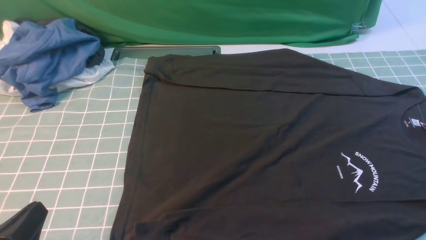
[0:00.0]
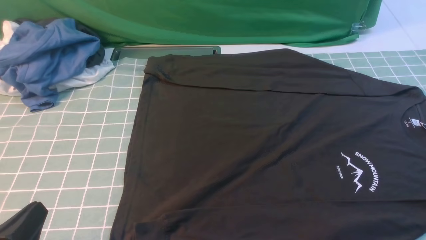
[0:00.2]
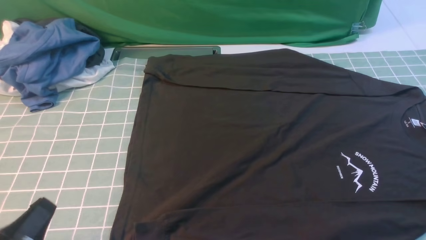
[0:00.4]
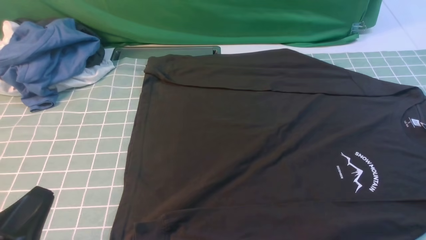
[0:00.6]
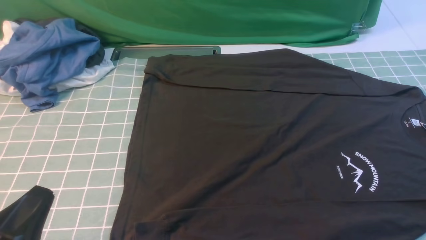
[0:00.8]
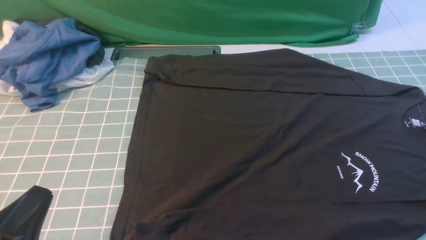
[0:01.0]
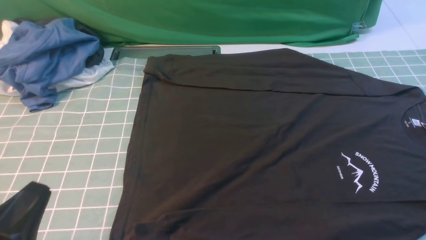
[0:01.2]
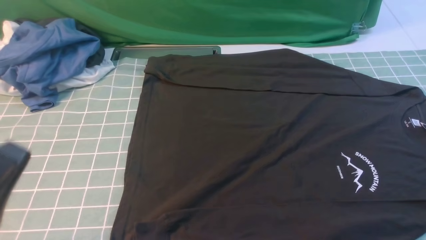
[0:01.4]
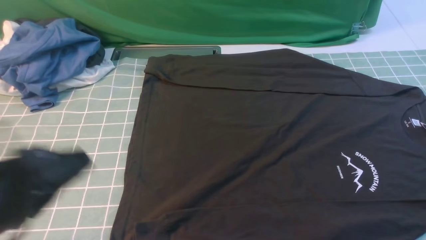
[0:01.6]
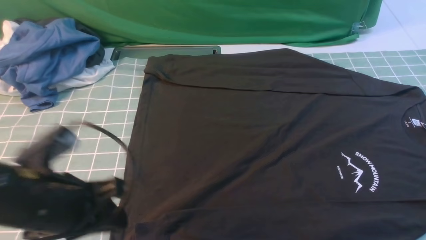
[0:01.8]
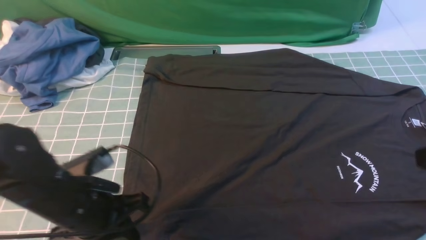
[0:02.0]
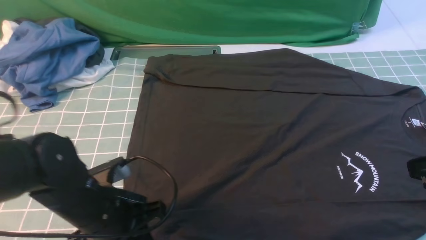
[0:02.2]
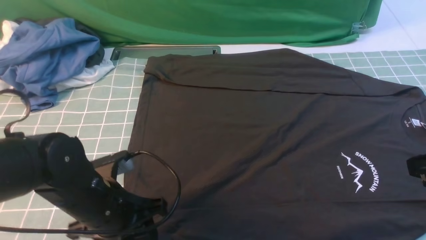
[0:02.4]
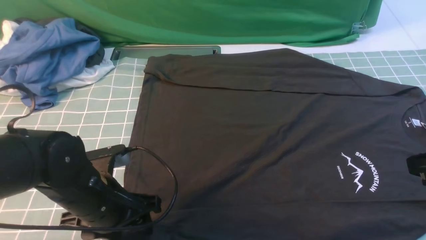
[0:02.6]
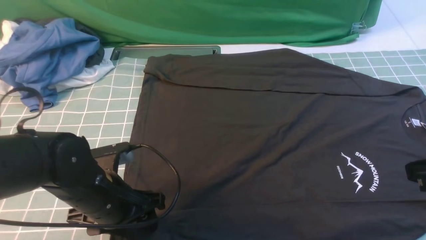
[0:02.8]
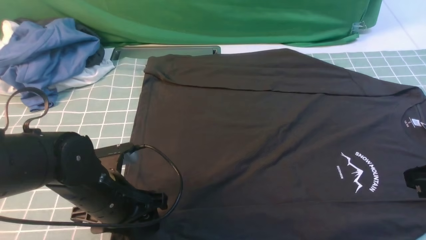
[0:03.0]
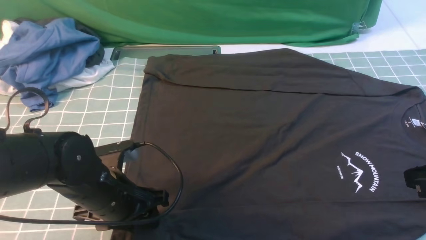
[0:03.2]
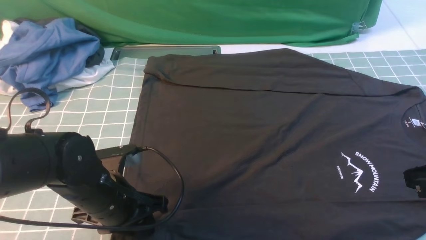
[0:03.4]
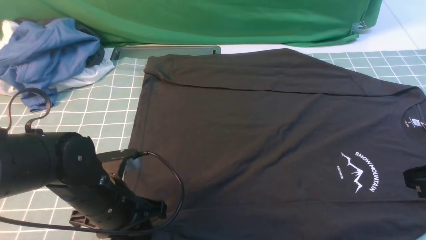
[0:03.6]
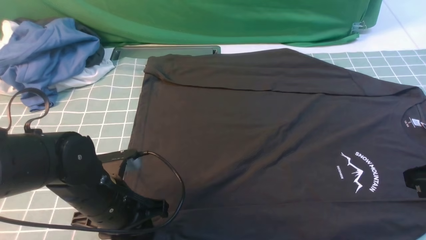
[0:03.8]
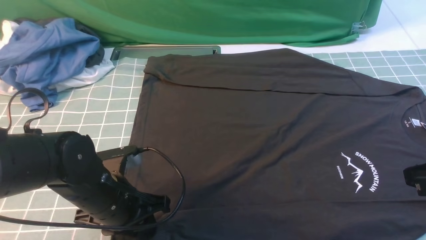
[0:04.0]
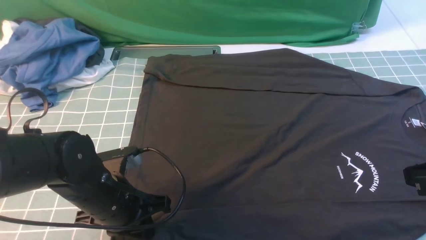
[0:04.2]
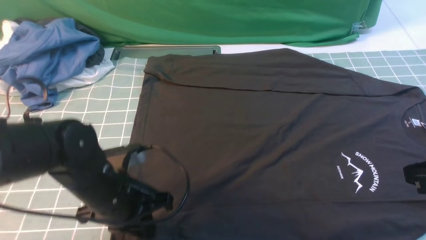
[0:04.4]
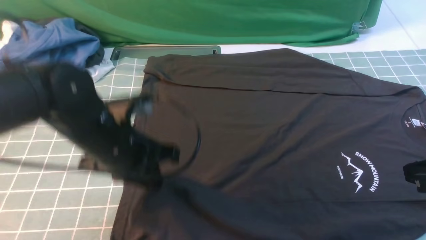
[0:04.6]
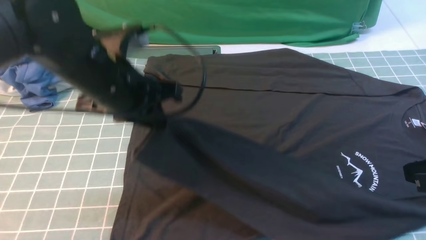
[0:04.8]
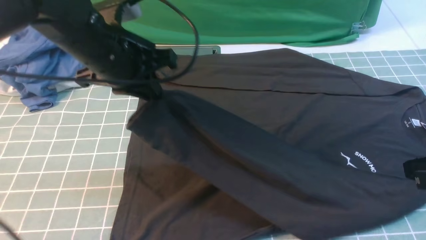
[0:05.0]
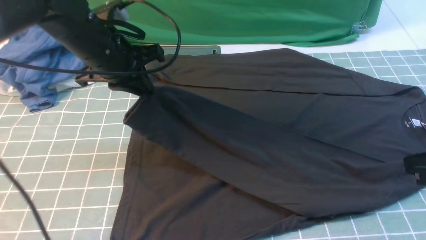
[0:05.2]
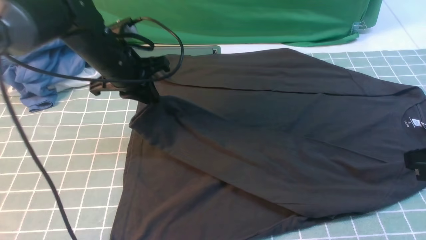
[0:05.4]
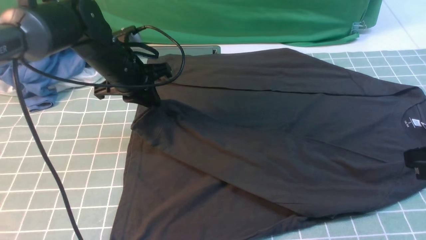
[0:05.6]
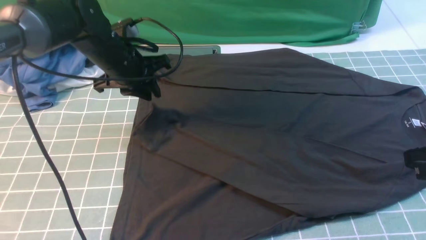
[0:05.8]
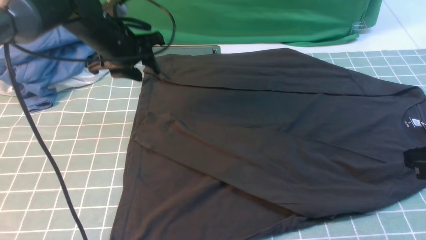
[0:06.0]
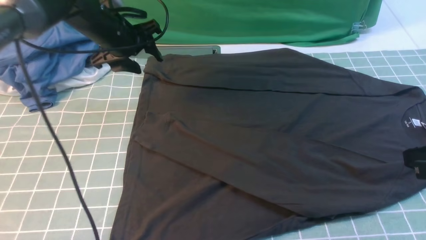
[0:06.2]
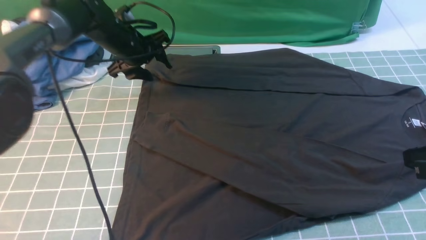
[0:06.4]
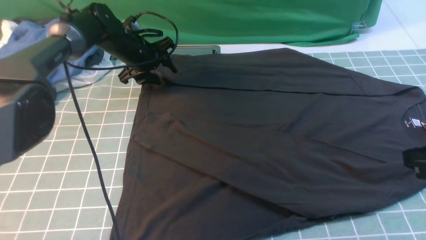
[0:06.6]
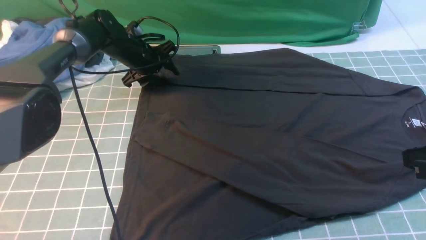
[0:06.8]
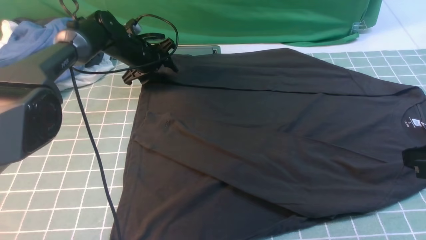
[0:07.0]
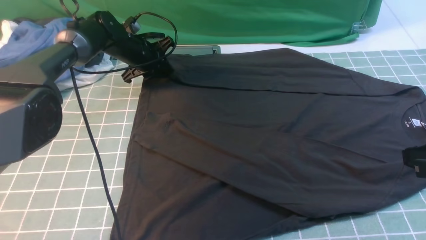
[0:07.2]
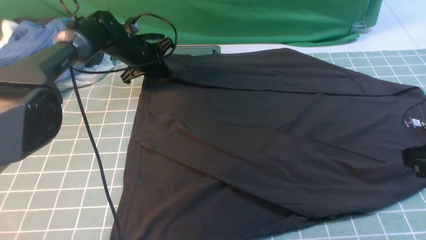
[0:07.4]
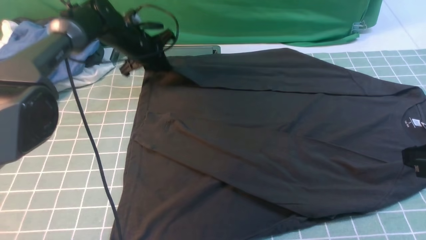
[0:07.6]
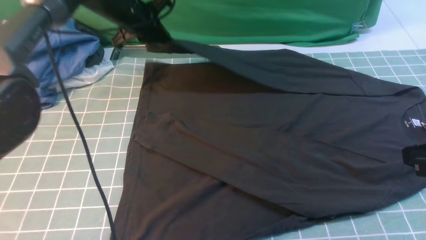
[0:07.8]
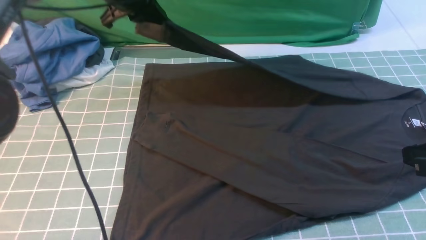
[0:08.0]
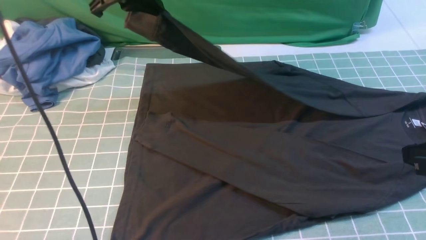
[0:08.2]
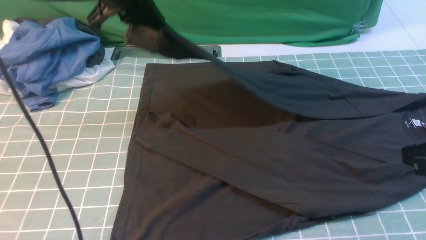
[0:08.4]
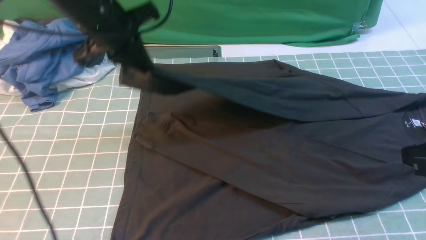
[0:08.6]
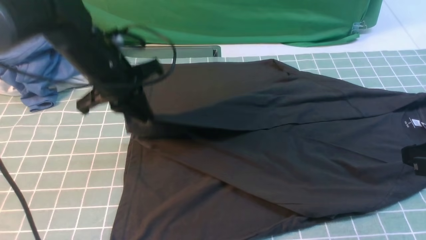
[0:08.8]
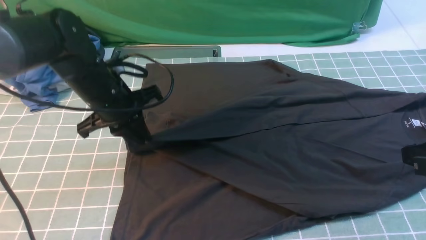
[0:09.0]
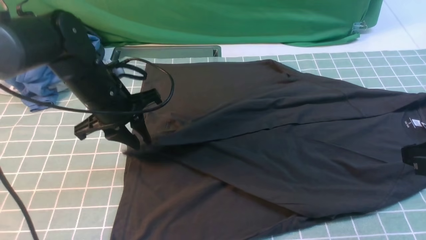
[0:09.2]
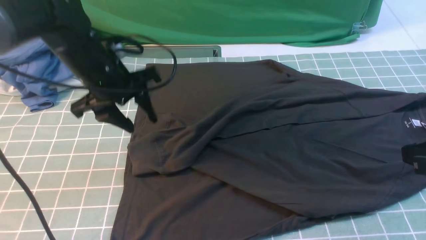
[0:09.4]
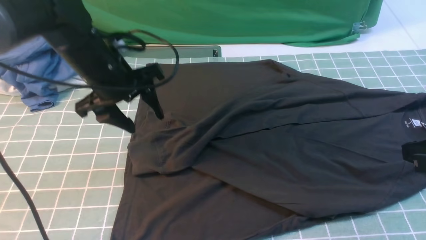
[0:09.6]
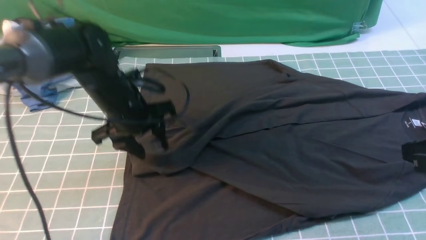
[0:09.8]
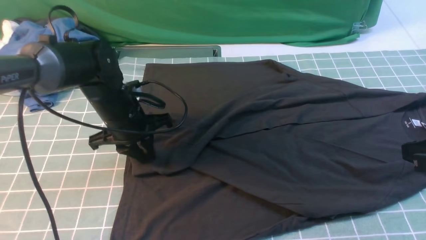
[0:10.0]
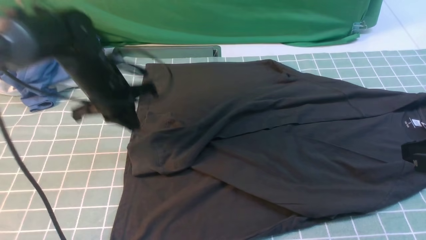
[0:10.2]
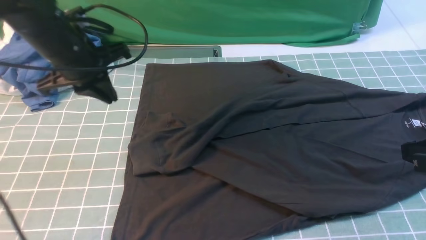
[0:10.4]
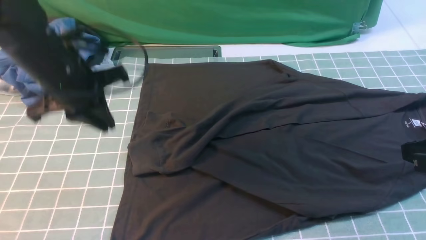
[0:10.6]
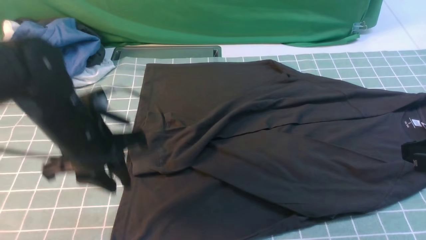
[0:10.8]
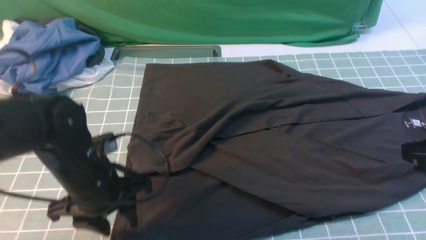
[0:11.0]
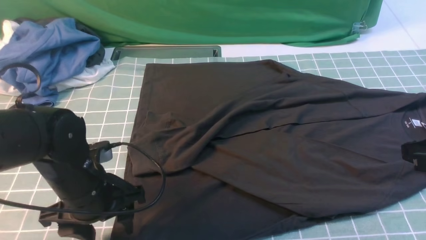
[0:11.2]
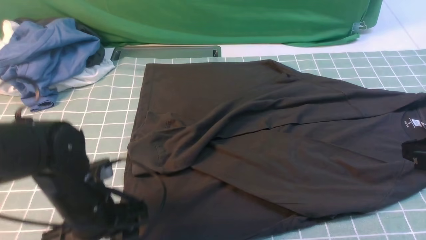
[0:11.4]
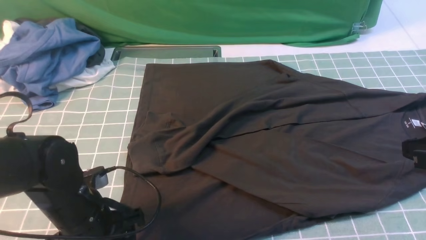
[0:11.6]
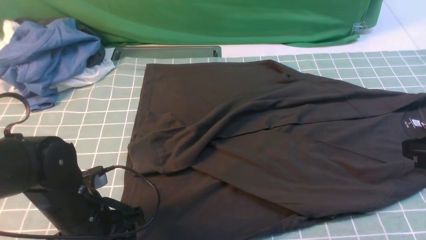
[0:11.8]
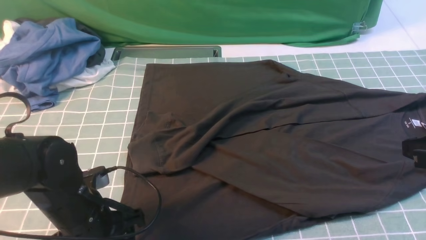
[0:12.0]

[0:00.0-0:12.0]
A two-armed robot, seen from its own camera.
Step, 0:00.0 to 0:04.4: use the left arm to clamp the cuff closest to it.
Step, 0:04.6 to 0:05.8: use the left arm to drag and place the cuff at the centered position on the left edge of the fabric.
Step, 0:06.0 to 0:07.6: use the left arm to clamp the cuff farthest from it.
Step, 0:07.8 to 0:09.2: use the left arm to drag and drop the cuff onto the cuff closest to the left arm.
0:00.0 to 0:01.6: The left gripper goes some 10 cm upward and forward.
0:01.6 to 0:03.0: The right gripper goes some 5 cm forward. Meanwhile the left gripper heads downward, forward and to the right, covering about 15 cm, and opens its fingers.
0:03.0 to 0:04.4: The left gripper closes its fingers.
0:04.4 to 0:06.0: The left gripper is displaced forward by approximately 20 cm, and opens its fingers.
0:06.0 to 0:07.6: The left gripper heads forward, covering some 10 cm, and closes its fingers.
0:07.6 to 0:09.0: The left gripper moves backward, about 20 cm.
0:09.0 to 0:10.4: The left gripper shifts by about 5 cm, and opens, then closes once more.
0:10.4 to 0:12.0: The left gripper is displaced backward and downward by about 20 cm, and opens up.

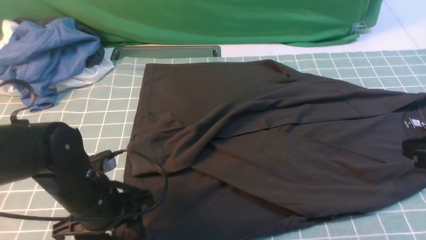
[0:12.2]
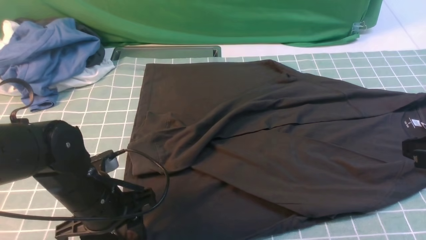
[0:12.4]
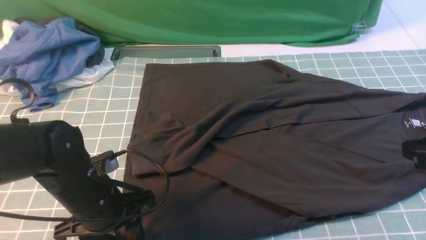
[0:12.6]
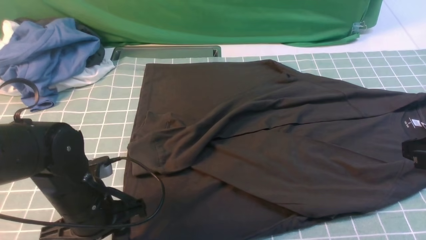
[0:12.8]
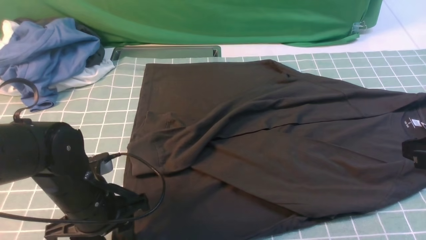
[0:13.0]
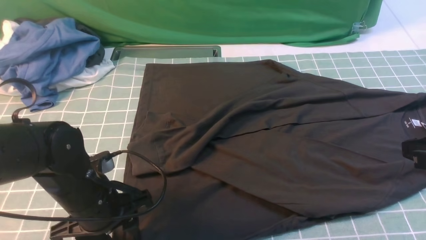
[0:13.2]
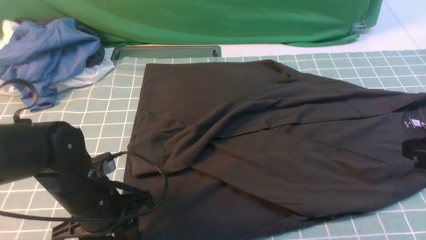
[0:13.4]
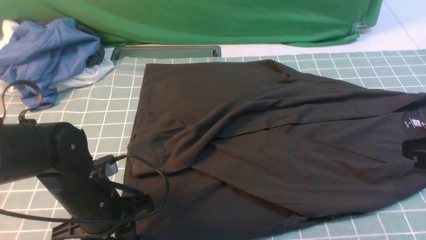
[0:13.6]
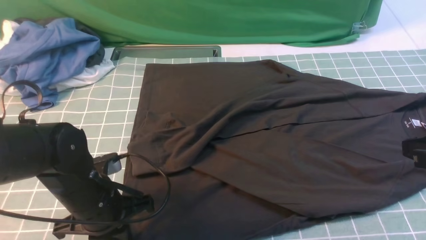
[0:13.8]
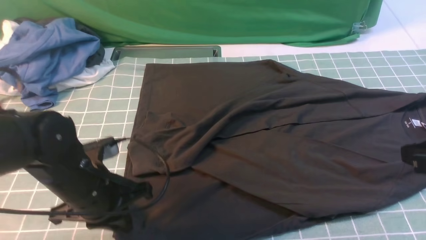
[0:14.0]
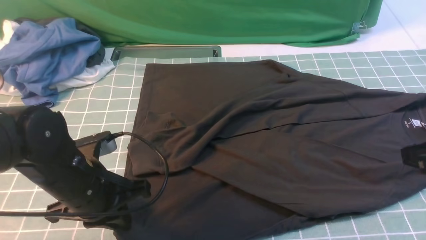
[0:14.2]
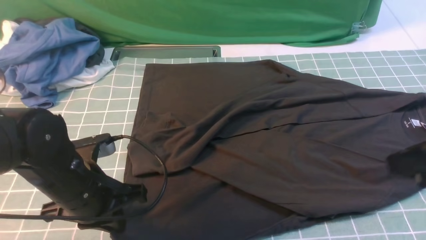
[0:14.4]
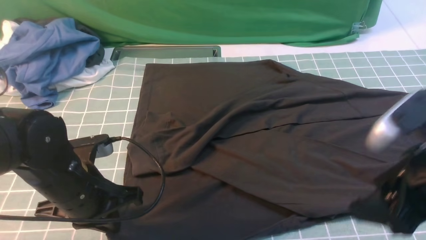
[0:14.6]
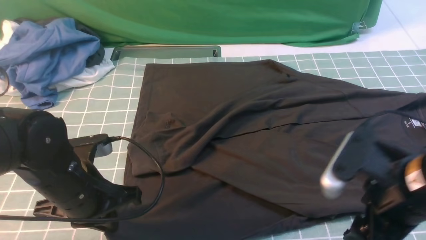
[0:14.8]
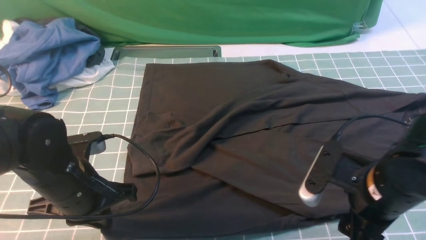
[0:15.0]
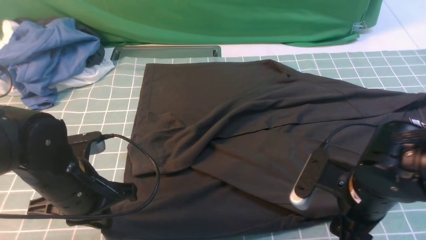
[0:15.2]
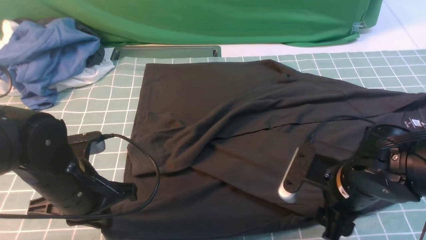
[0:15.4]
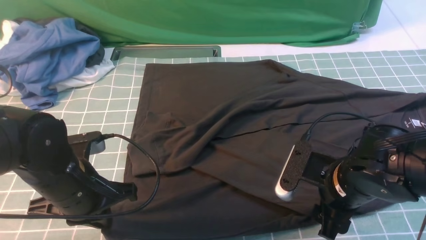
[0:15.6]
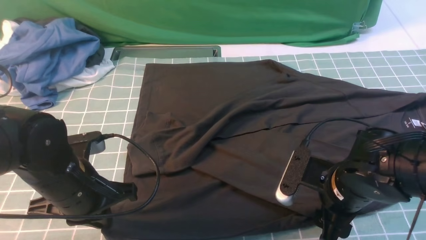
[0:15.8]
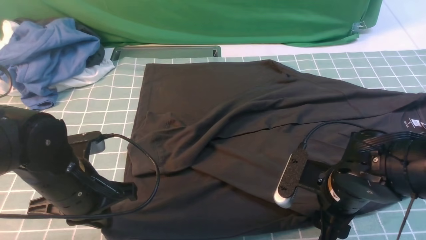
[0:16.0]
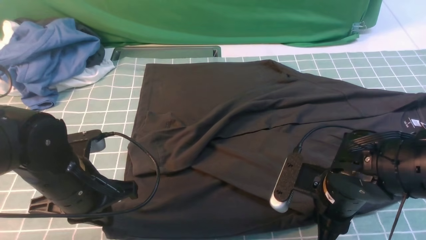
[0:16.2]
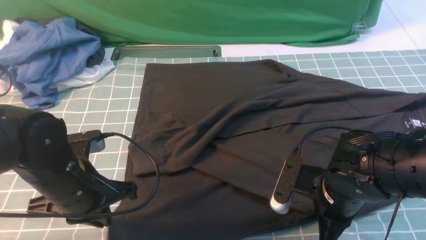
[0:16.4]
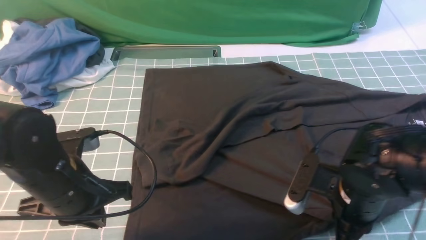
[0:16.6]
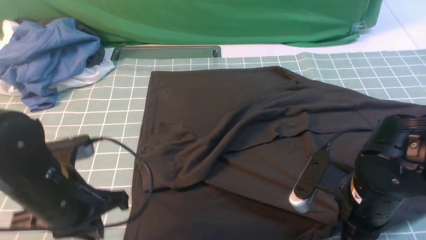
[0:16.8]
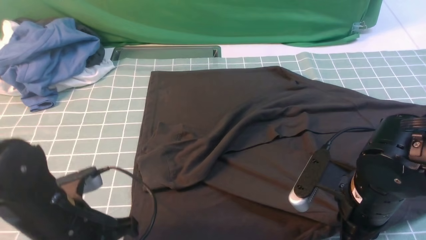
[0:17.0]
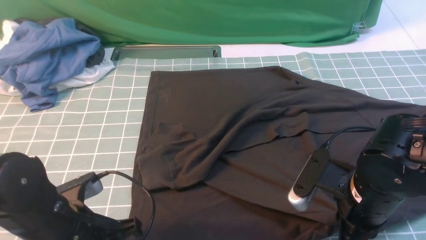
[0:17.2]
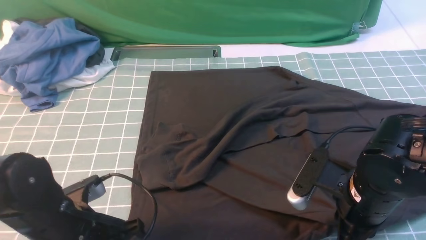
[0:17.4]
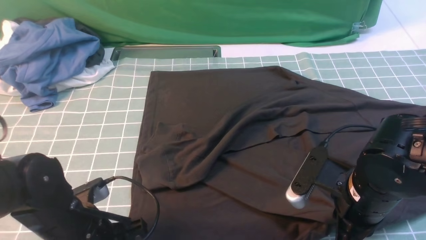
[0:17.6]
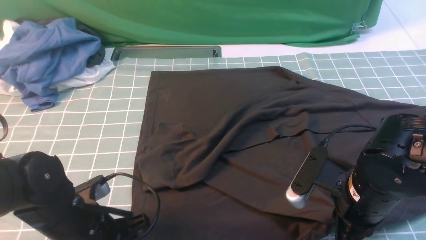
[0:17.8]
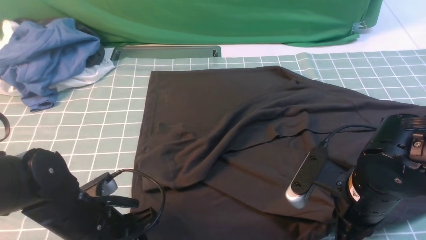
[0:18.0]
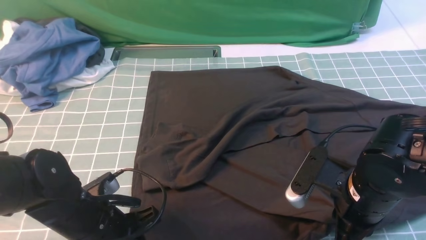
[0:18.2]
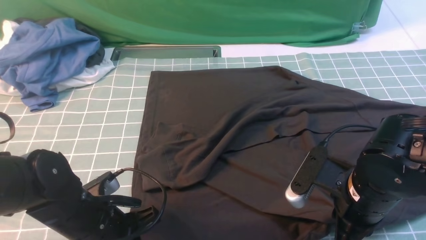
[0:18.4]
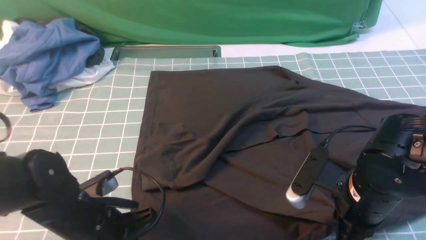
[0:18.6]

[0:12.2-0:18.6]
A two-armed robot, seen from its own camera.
0:12.2 to 0:13.8: The left gripper closes.
0:13.8 to 0:15.4: The right gripper shifts about 15 cm to the left and downward, and opens its fingers.
0:15.4 to 0:17.0: The right gripper closes up.
0:17.0 to 0:18.6: The left gripper opens and closes again.
